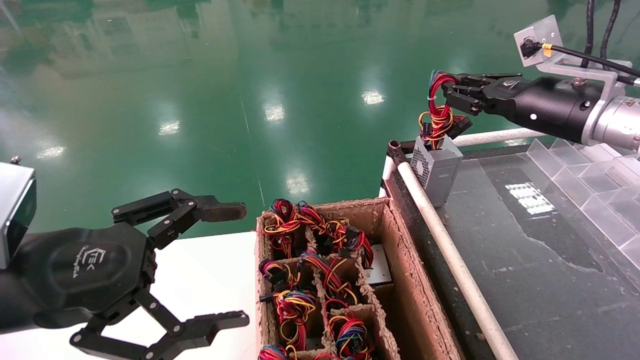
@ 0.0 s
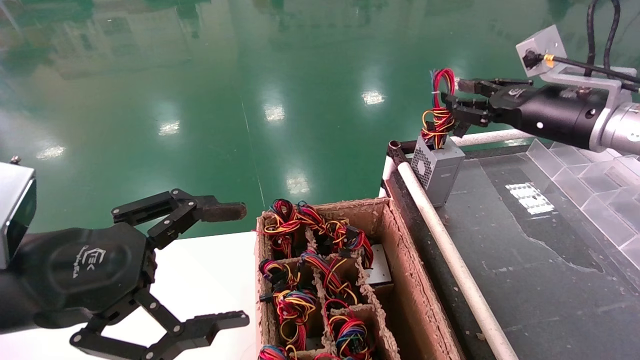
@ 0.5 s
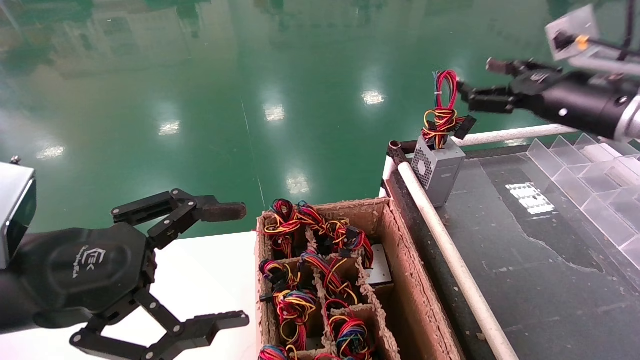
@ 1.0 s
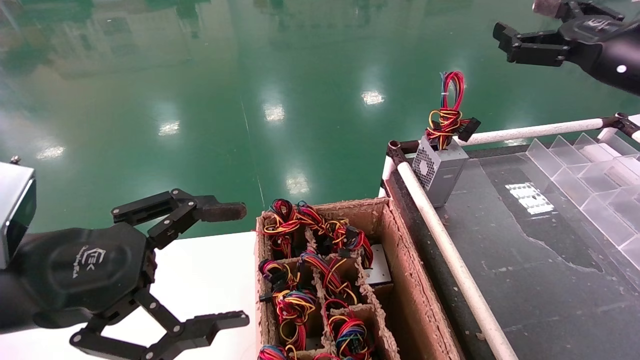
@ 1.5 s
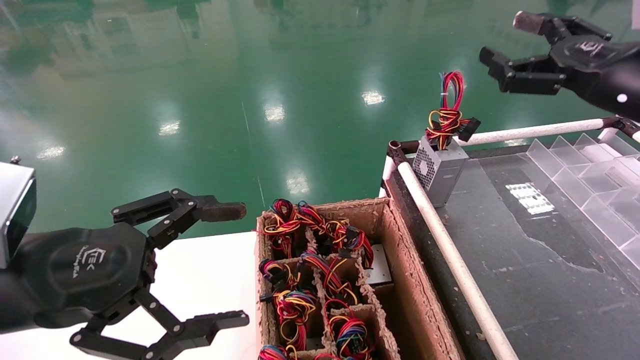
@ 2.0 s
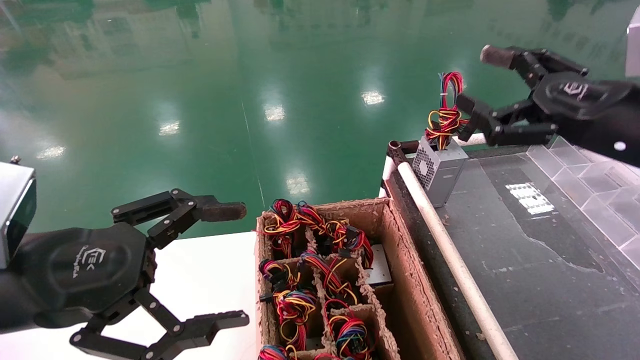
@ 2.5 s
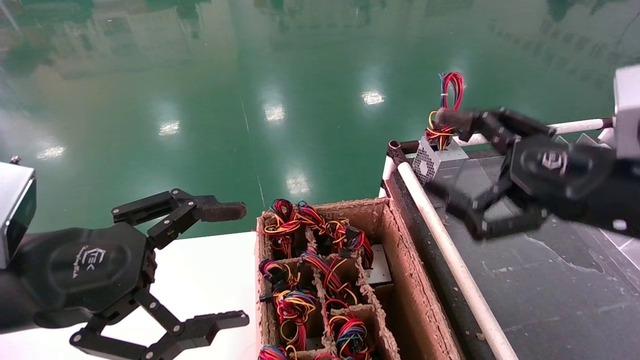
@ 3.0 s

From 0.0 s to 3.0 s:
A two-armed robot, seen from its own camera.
From 0.0 s to 1.5 s: The right gripper moves roughly 10 cm, and opens up.
From 1.5 s to 3.0 s: The right gripper heads backward, downward and to the left, covering roughly 15 cm.

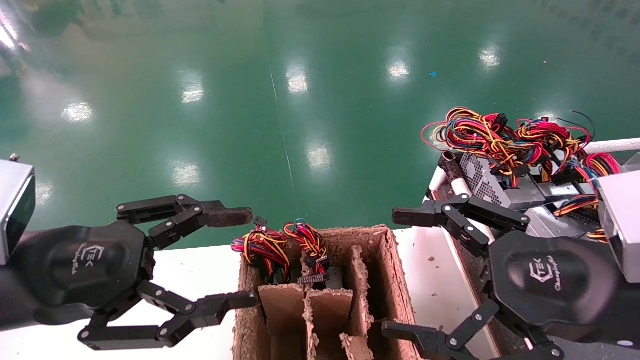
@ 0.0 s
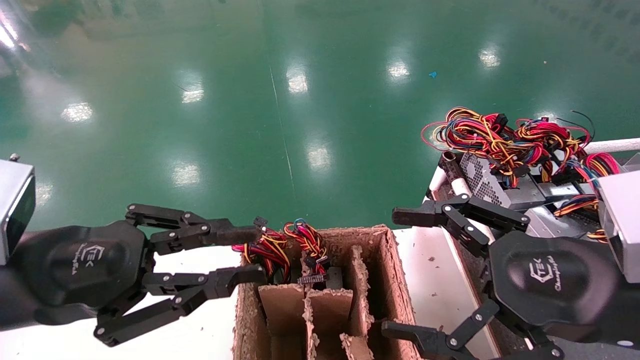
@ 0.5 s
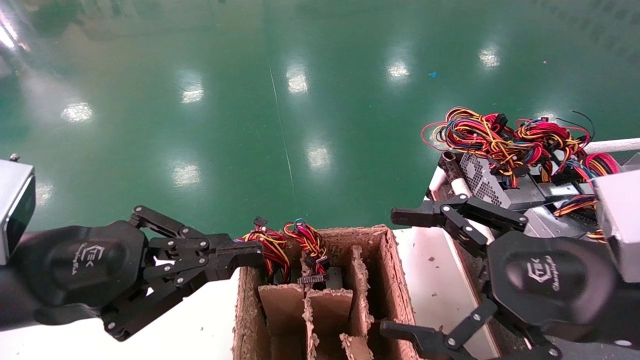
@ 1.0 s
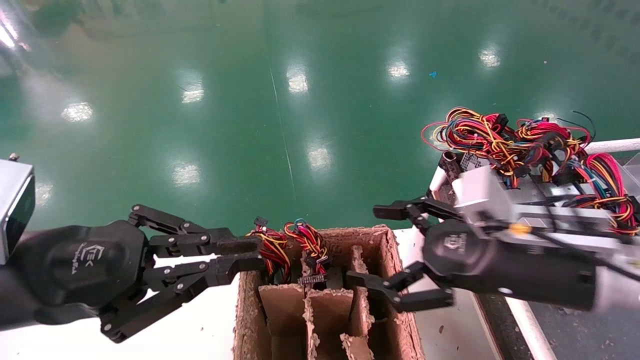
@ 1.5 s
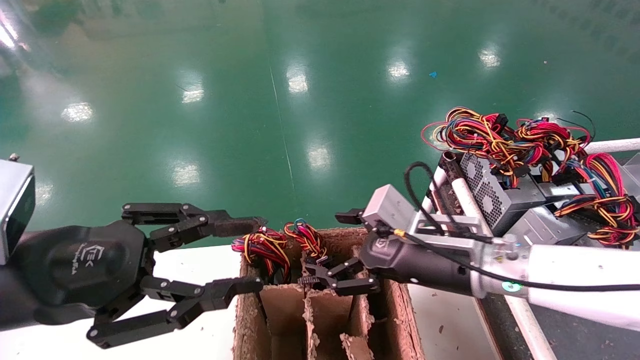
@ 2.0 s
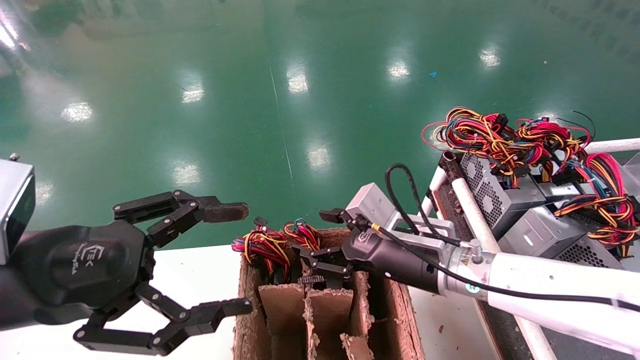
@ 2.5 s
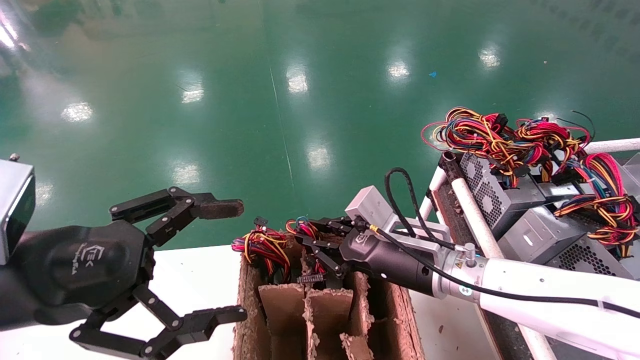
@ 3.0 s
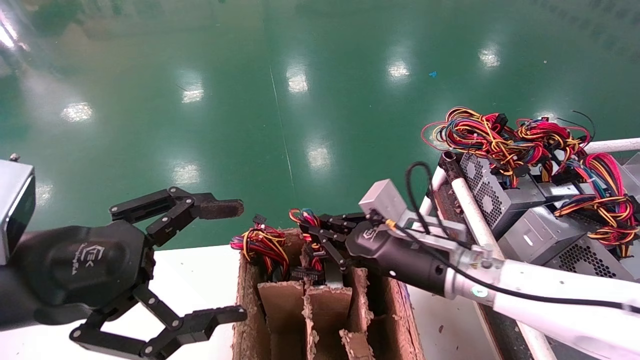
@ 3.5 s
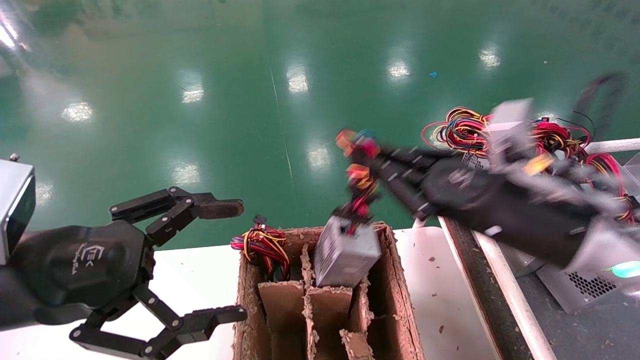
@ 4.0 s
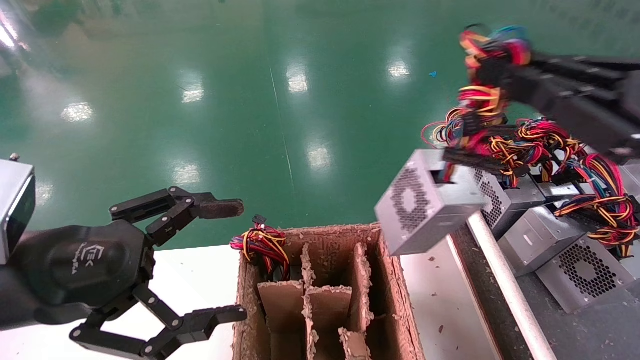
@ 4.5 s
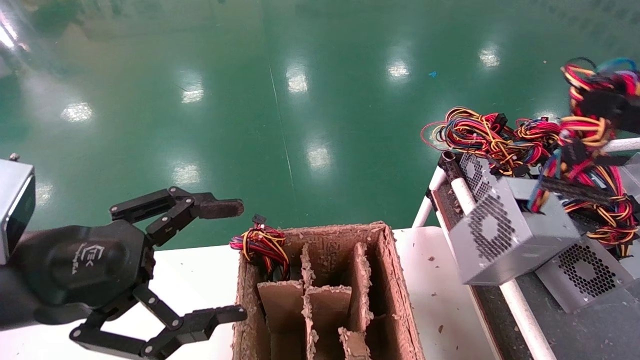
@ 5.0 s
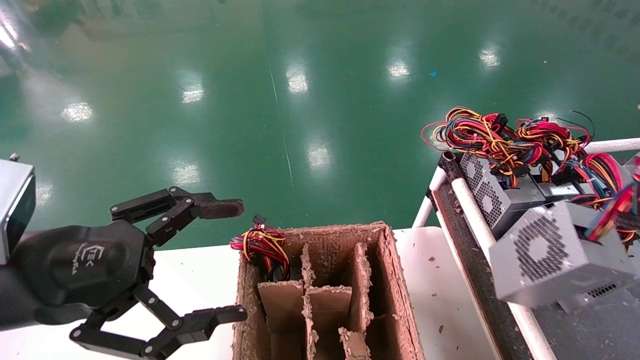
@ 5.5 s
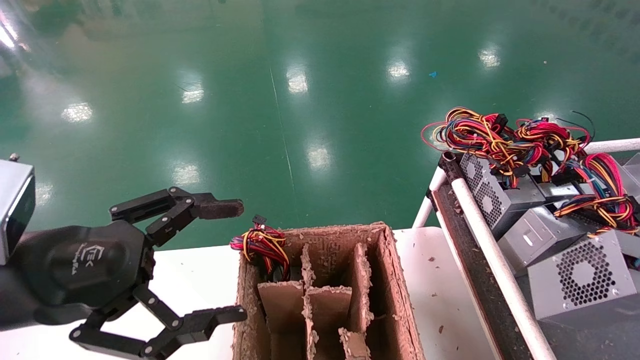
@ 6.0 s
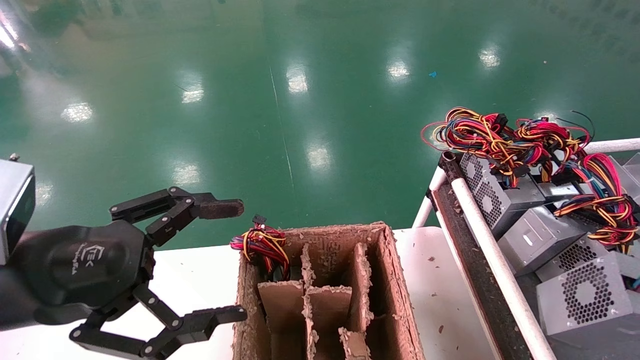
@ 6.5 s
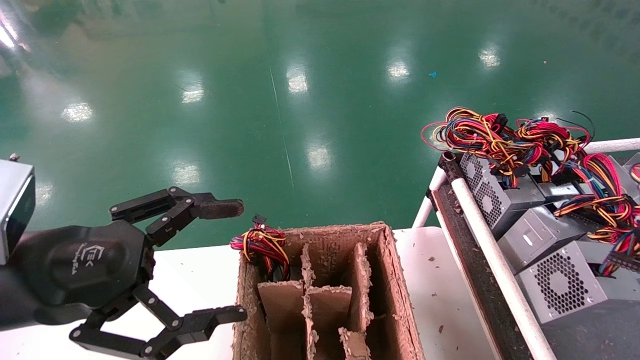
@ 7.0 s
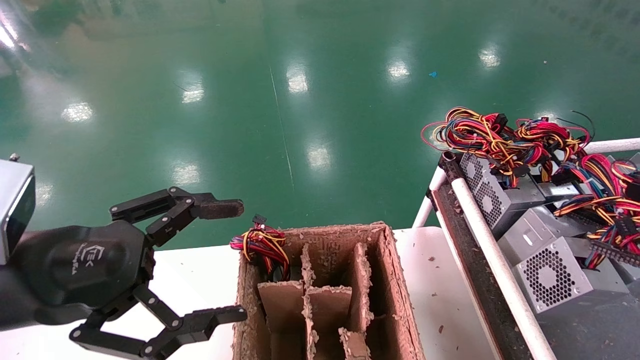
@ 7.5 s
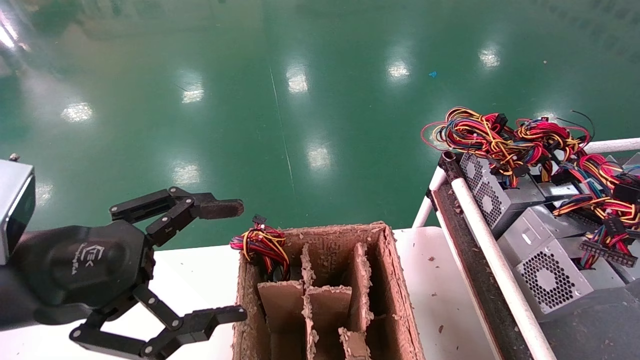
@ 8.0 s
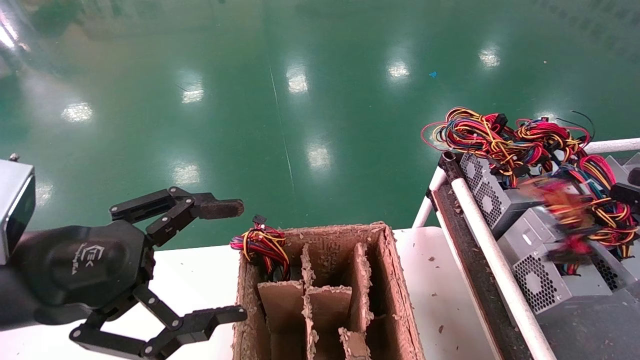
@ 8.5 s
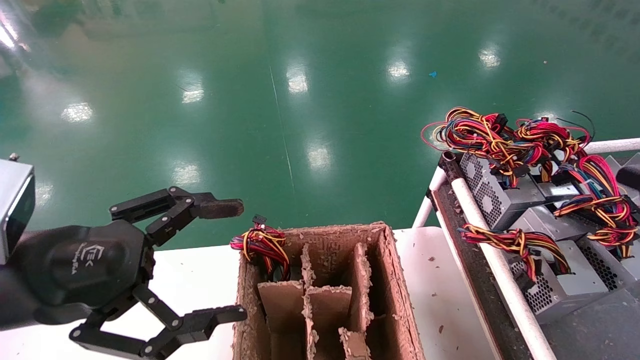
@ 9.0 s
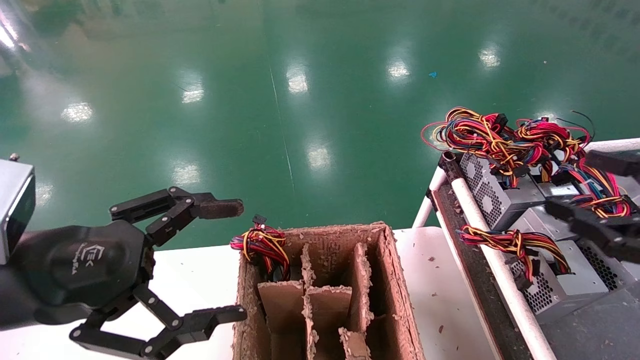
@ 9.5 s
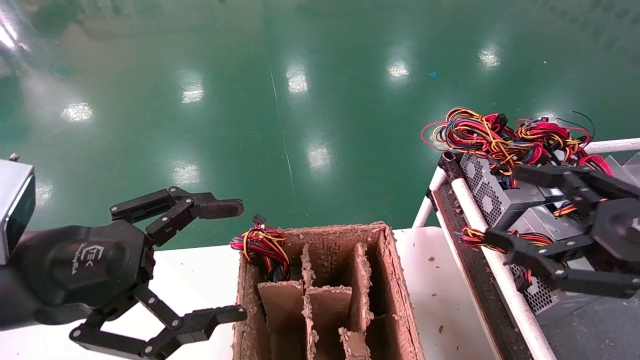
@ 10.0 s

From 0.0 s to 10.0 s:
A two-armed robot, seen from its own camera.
Step, from 1.5 s to 3.0 s: Grab and lift the power supply from the large box.
Step, from 3.5 s to 9.0 s: Place the power supply on the operating table.
From 0.0 s to 2.0 s: The left gripper closes, while the right gripper moves forward, to the left and downward, approximately 15 cm.
From 2.0 s to 4.0 s: The left gripper opens its fingers, while the right gripper travels upward and to the right by some 10 cm, and closes its fingers.
From 4.0 s to 6.0 s: The right gripper heads to the right and backward, covering roughly 30 cm.
From 6.0 s to 8.0 s: The right gripper heads forward, covering about 5 cm.
From 8.0 s to 10.0 s: The right gripper goes about 10 cm to the left, and opens its fingers.
